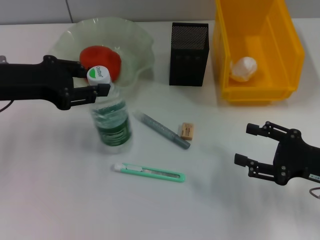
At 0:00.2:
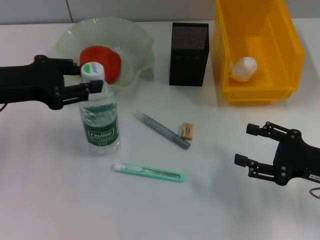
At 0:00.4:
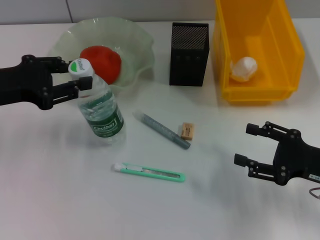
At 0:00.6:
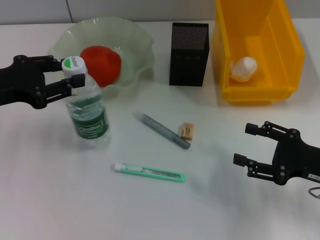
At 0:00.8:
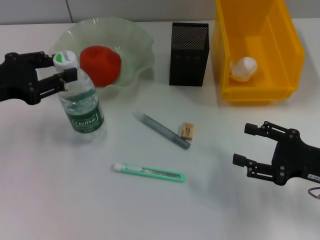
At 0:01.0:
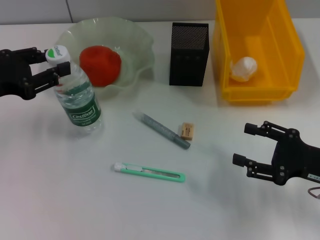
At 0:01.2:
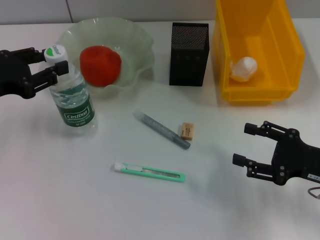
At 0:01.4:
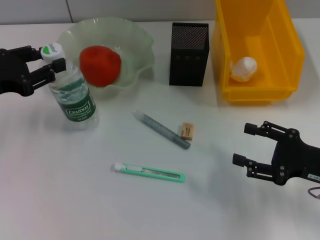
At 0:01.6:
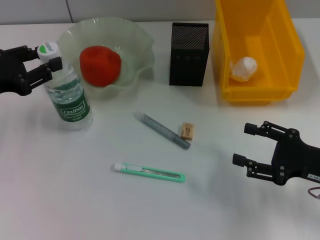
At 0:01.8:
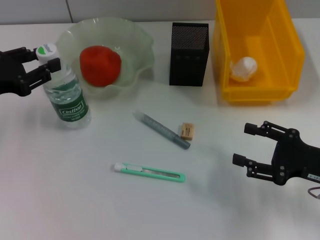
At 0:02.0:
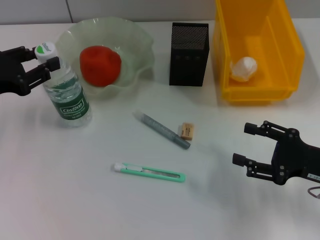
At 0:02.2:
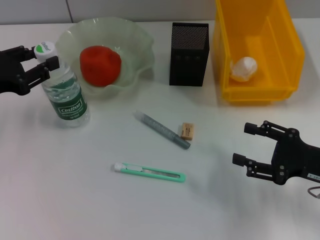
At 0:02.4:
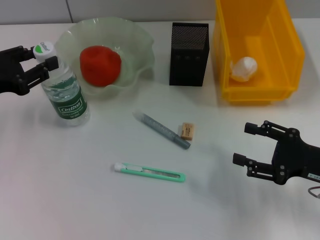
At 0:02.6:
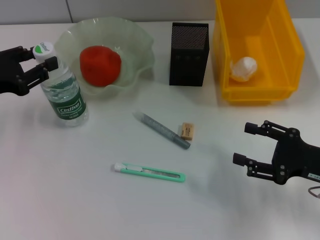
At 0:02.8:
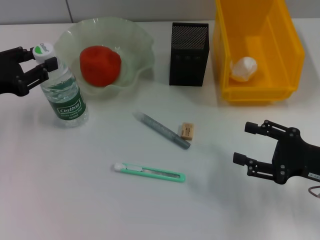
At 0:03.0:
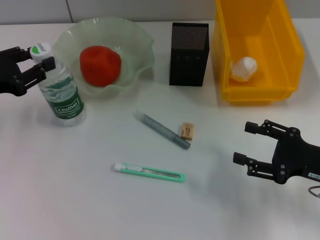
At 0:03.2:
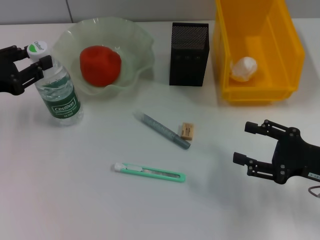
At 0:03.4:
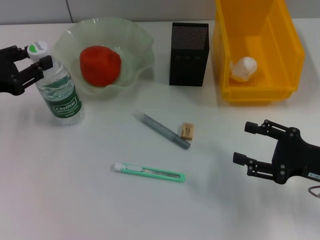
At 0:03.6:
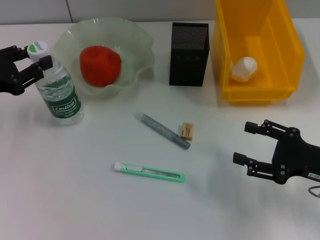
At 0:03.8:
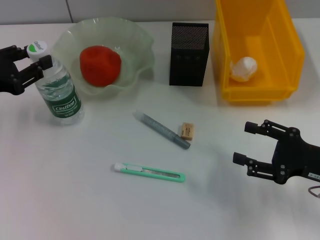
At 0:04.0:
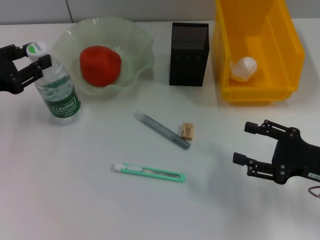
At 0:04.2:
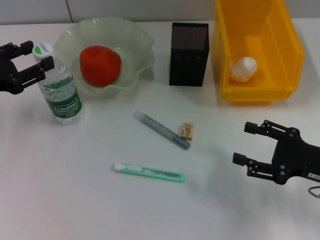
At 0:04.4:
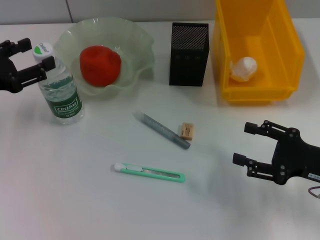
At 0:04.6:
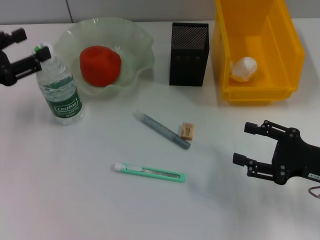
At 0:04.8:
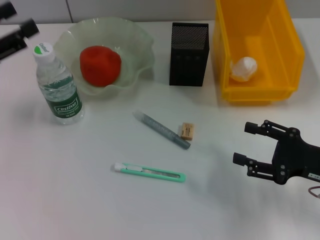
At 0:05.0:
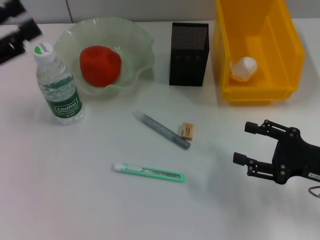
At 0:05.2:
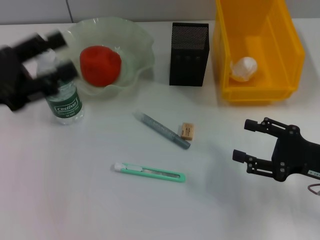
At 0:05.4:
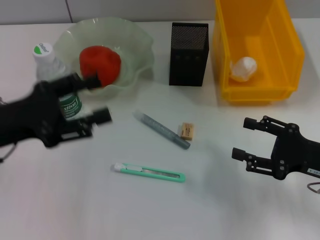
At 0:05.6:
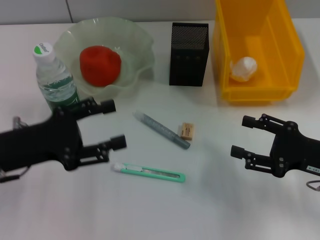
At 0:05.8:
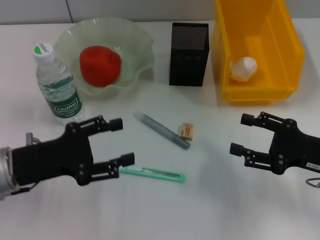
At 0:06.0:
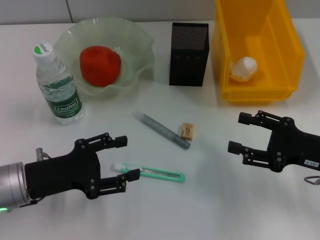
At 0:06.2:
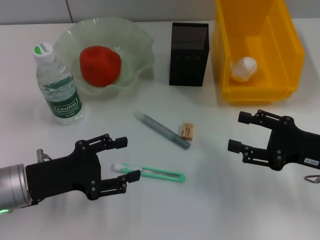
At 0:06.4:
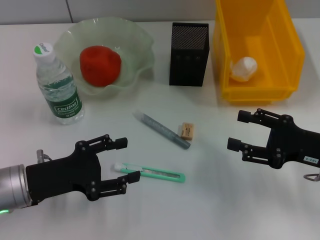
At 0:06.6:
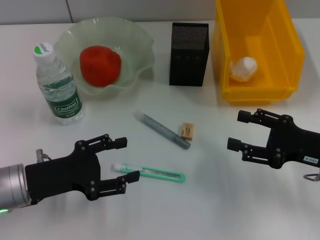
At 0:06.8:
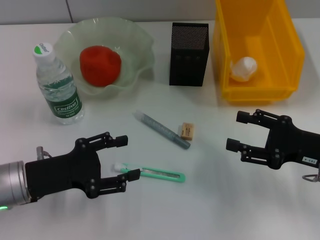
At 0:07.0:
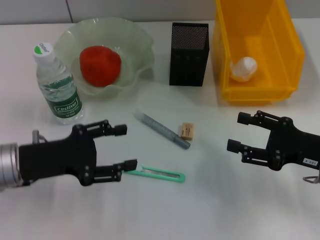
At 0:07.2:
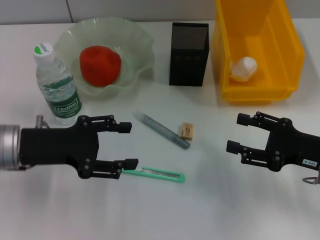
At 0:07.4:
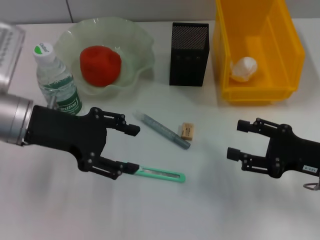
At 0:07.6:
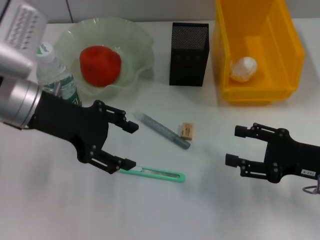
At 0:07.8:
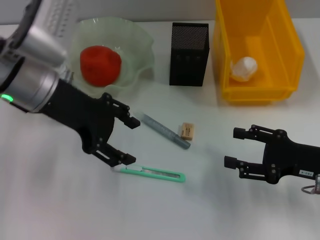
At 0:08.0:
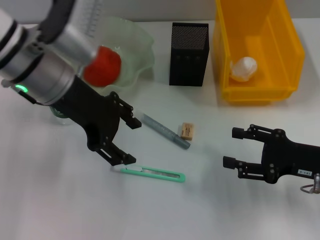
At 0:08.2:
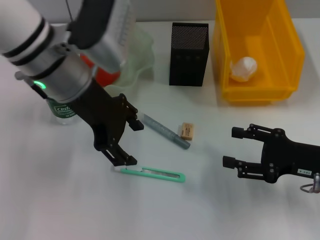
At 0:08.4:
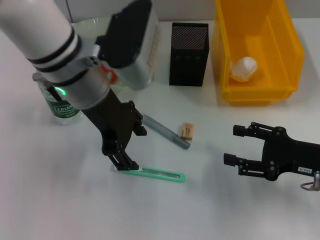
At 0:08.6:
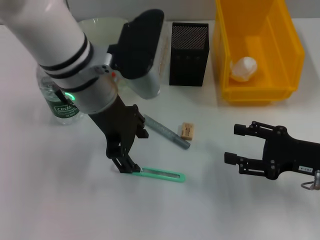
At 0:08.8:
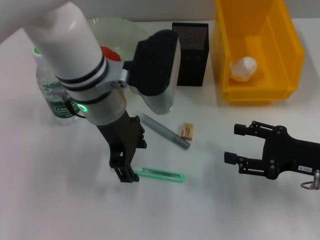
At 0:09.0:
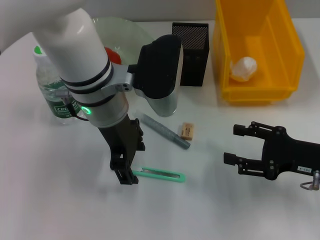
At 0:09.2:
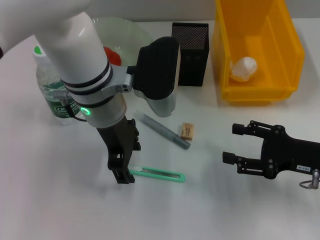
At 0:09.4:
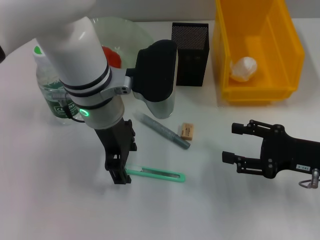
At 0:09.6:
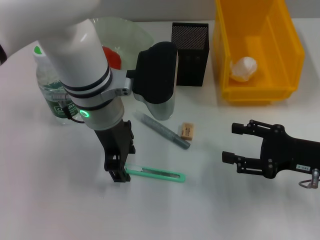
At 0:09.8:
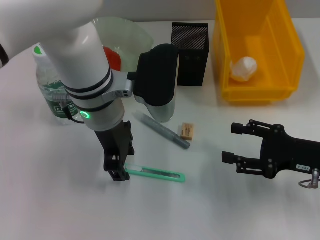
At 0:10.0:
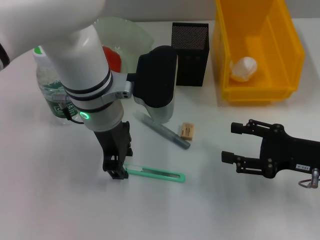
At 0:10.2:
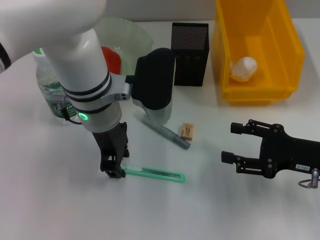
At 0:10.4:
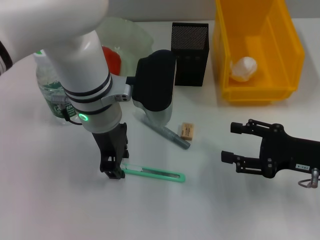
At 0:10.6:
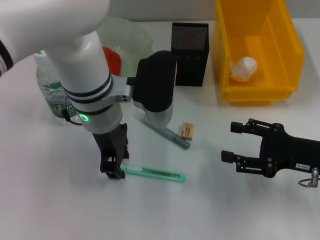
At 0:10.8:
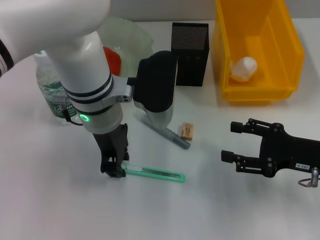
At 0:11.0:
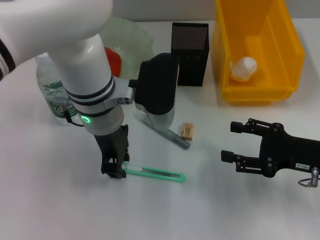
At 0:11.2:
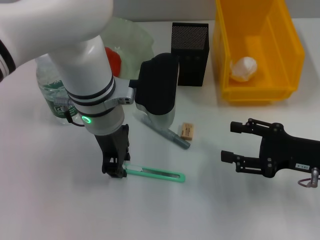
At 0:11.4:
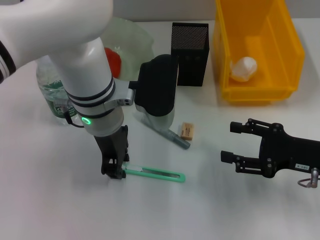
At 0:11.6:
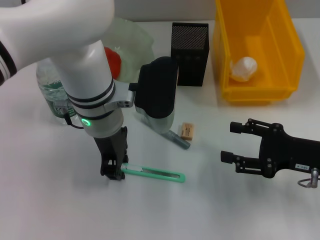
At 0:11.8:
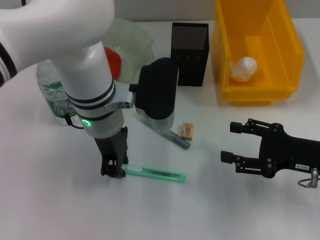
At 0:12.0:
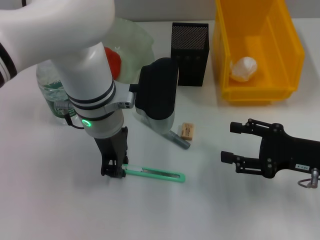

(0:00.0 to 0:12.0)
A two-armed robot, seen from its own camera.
Step, 0:00.0 - 0:04.2: Place the water bottle on the table with the left hand.
0:00.0 - 0:01.6: The left gripper shifts approximately 5 cm to the left.
0:01.6 - 0:03.0: Neither gripper changes place.
0:03.0 - 0:04.4: Both grippers stay about where they are.
0:04.4 - 0:06.0: The left gripper travels to the right, downward and backward by roughly 15 cm.
0:06.0 - 0:07.6: The left gripper heads upward and forward, covering roughly 15 cm.
0:07.6 - 0:09.0: The left gripper goes some 15 cm to the right.
0:09.0 - 0:10.4: The left gripper closes up.
0:10.4 - 0:12.0: The two grippers keep their place.

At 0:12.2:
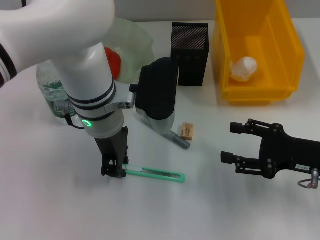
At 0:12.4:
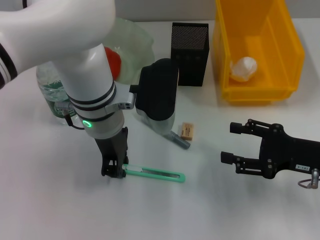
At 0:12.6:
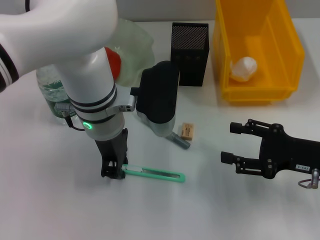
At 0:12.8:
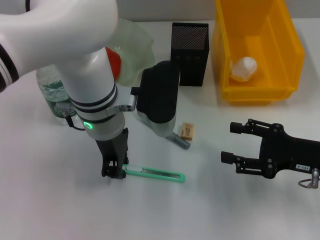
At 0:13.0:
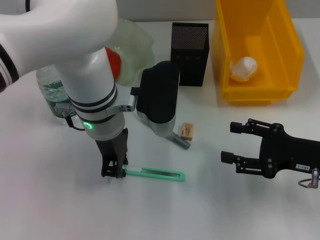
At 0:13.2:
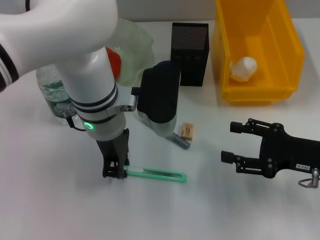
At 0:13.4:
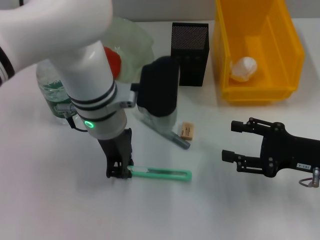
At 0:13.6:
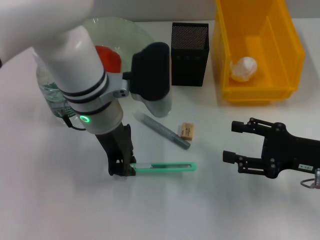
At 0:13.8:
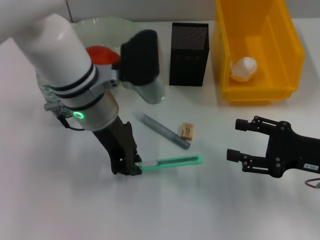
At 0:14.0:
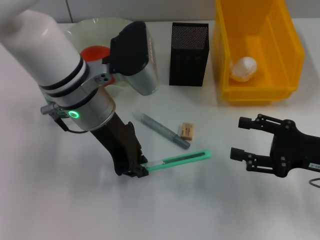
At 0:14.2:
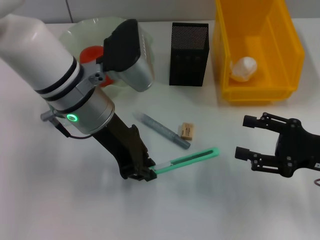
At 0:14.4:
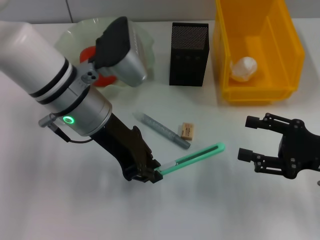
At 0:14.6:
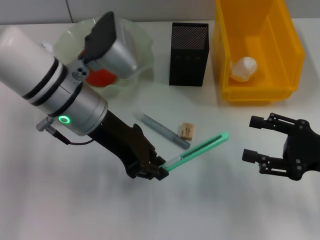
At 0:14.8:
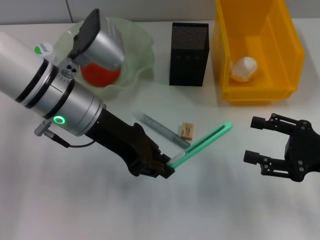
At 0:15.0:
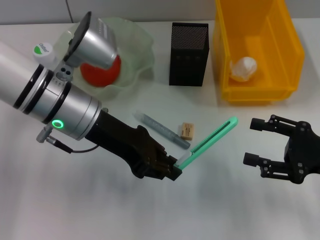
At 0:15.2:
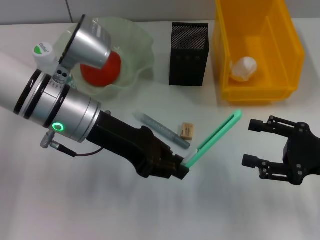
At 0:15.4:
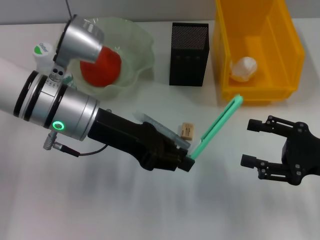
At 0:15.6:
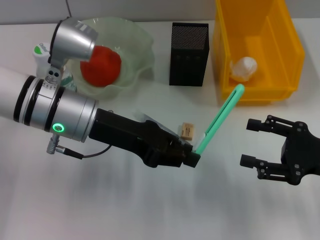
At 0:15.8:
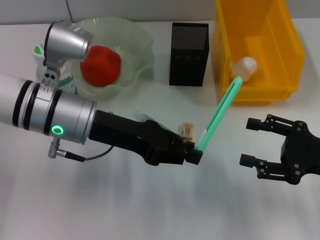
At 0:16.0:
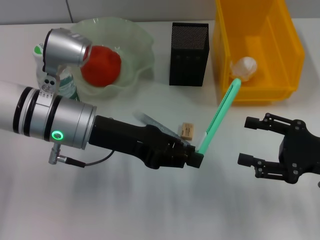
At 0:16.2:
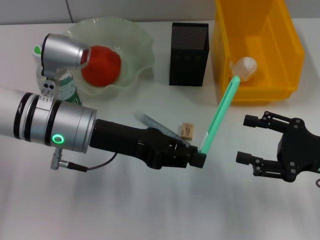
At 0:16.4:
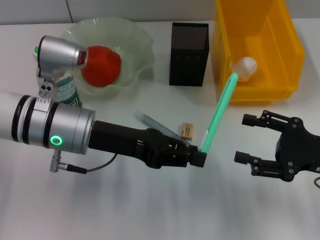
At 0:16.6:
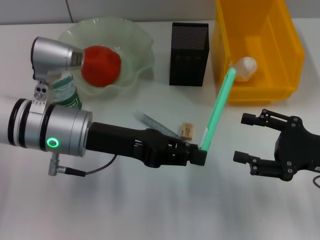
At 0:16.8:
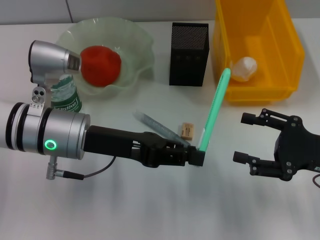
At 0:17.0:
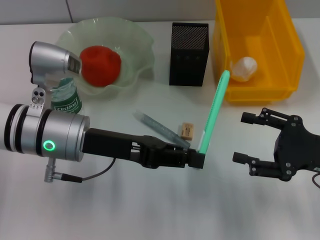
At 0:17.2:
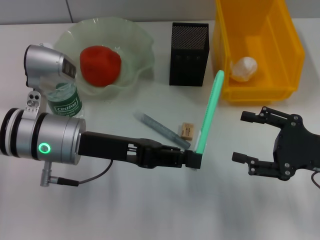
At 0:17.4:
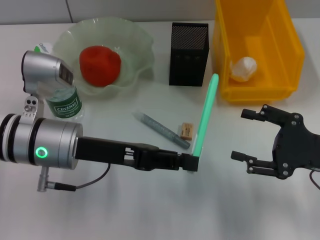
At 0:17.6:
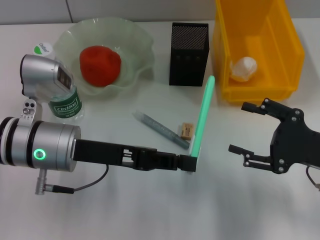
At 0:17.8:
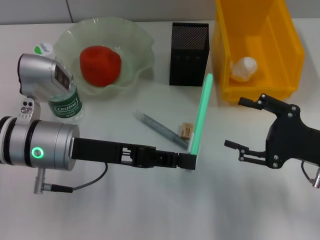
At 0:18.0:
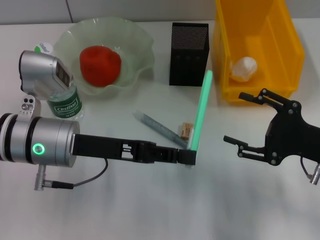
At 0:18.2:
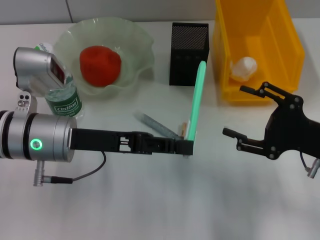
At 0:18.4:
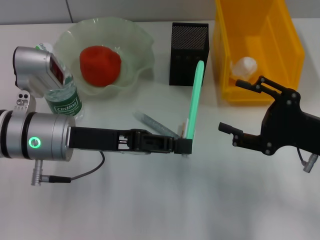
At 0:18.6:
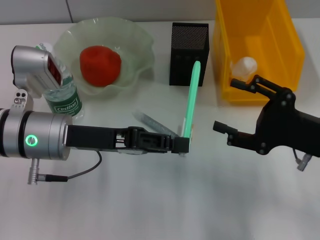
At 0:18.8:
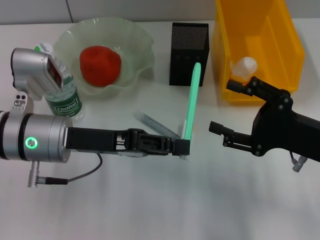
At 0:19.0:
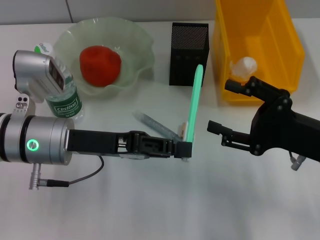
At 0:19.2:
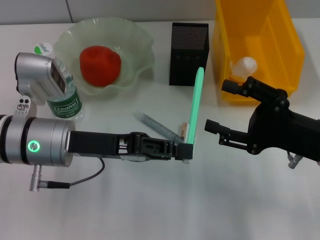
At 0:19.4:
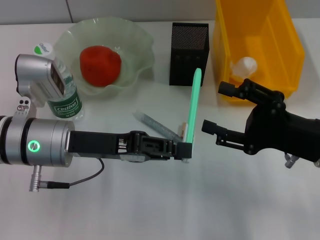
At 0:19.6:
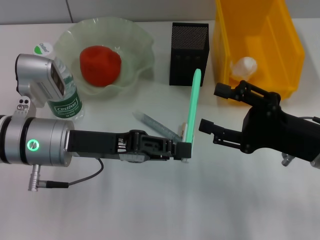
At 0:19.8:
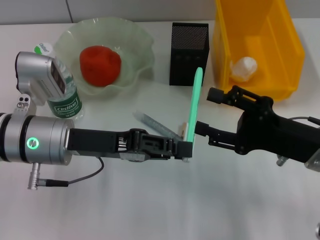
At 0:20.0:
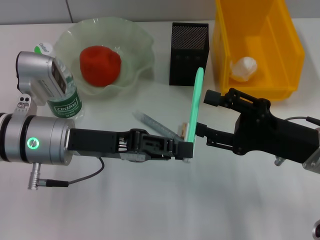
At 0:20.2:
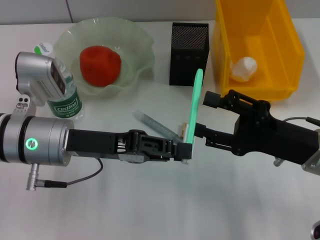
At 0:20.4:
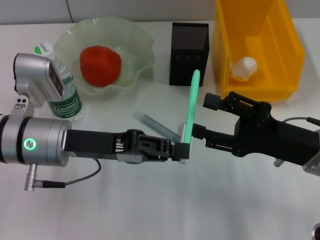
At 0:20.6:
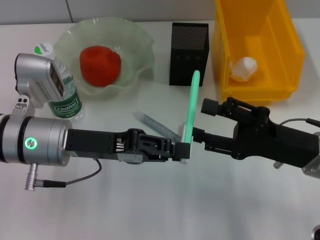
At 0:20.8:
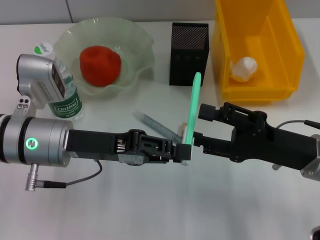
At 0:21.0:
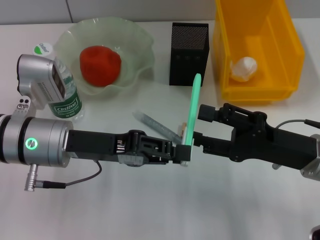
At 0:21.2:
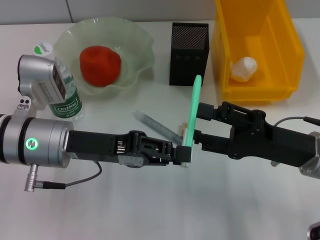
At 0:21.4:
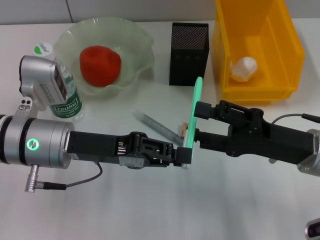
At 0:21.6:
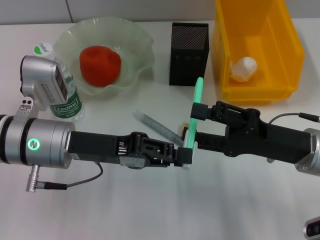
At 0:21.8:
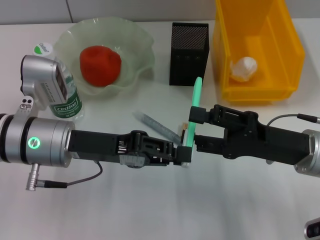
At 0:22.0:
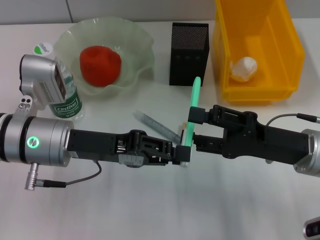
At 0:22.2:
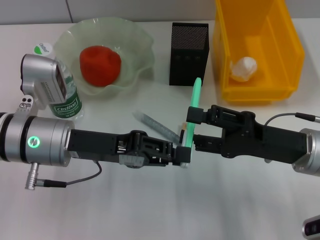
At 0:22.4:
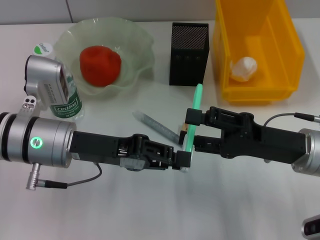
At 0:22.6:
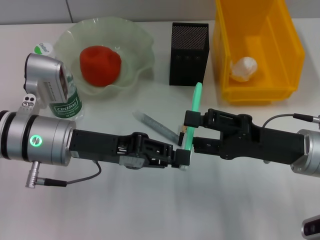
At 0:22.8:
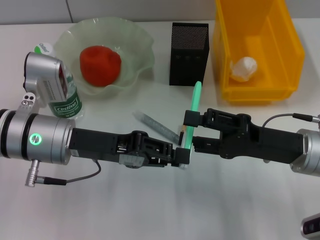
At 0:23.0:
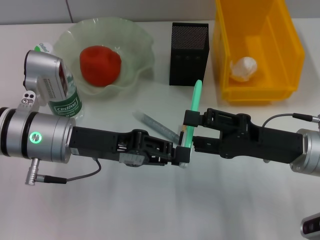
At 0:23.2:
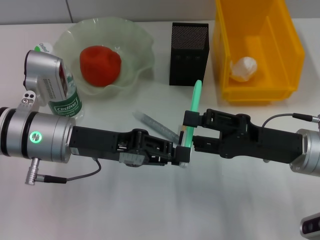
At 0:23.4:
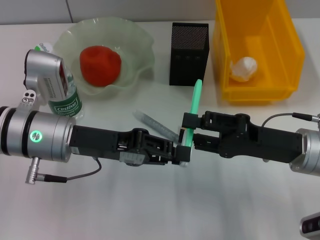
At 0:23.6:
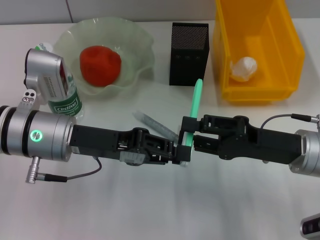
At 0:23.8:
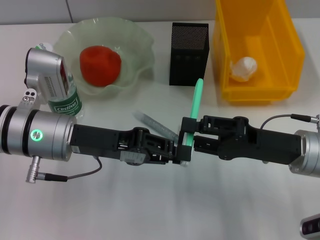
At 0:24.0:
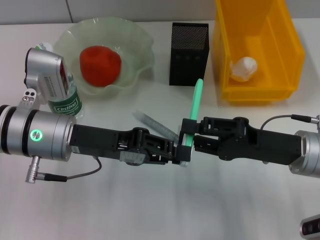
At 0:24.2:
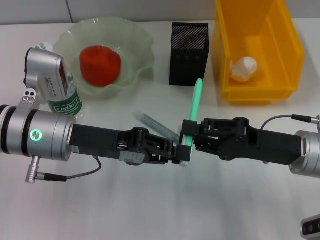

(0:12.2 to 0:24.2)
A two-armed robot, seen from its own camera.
0:13.8 - 0:15.2: The left gripper moves roughly 5 cm.
0:19.8 - 0:22.6: The grippers stay close to where they were, moving slightly.
0:22.6 - 0:24.2: The right gripper closes its fingers.
